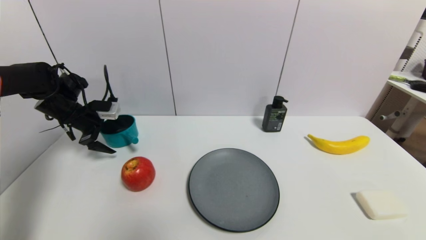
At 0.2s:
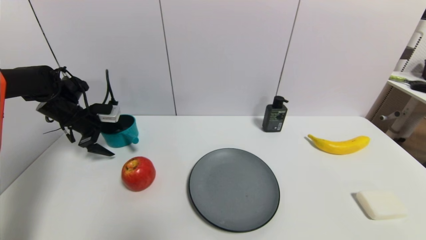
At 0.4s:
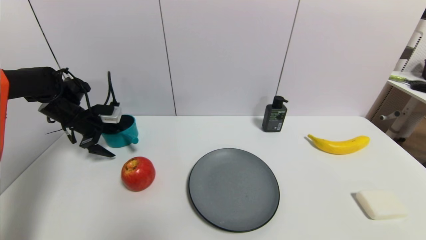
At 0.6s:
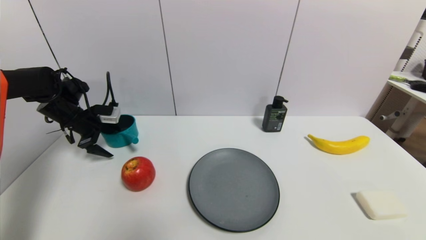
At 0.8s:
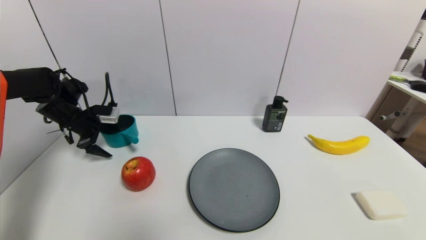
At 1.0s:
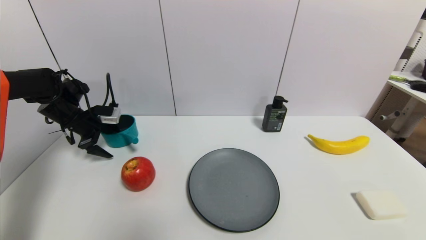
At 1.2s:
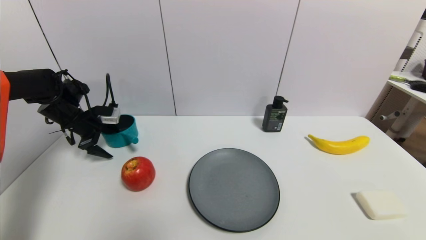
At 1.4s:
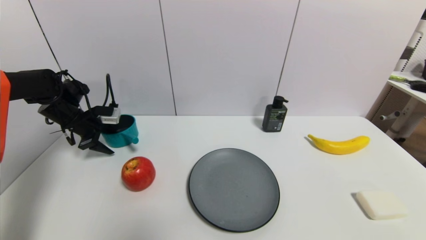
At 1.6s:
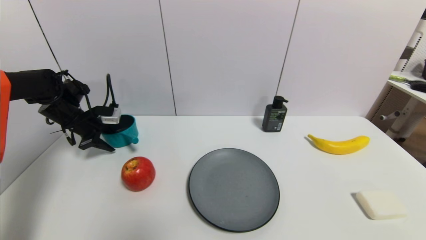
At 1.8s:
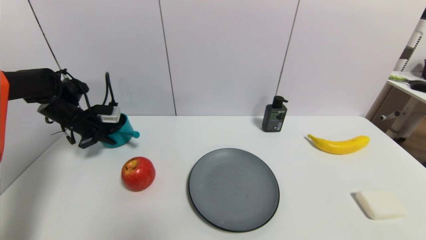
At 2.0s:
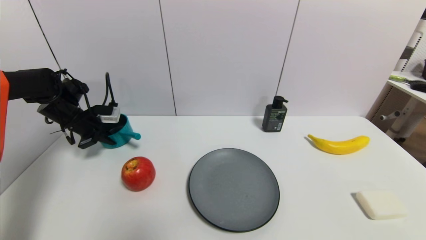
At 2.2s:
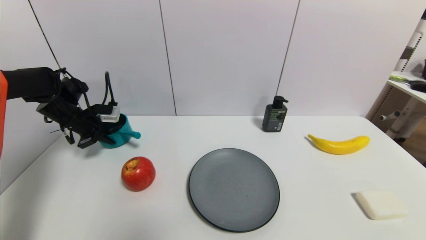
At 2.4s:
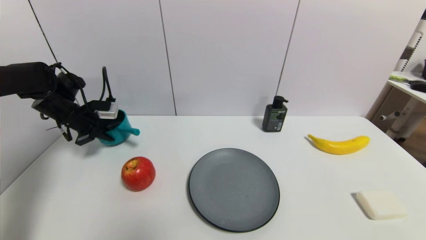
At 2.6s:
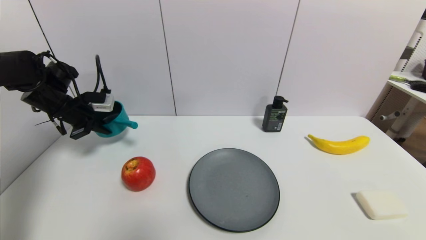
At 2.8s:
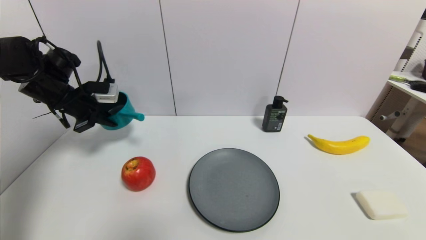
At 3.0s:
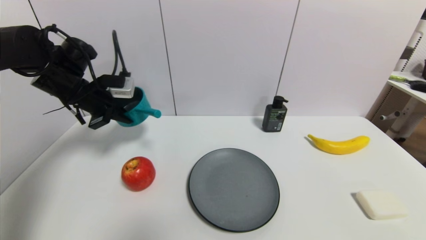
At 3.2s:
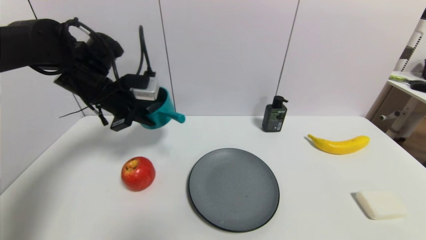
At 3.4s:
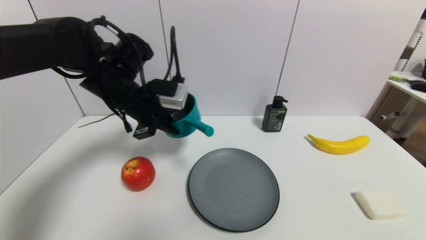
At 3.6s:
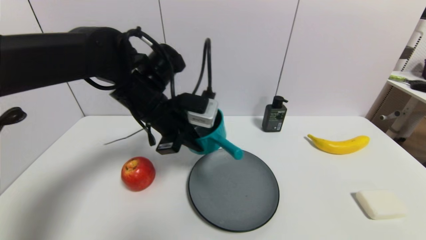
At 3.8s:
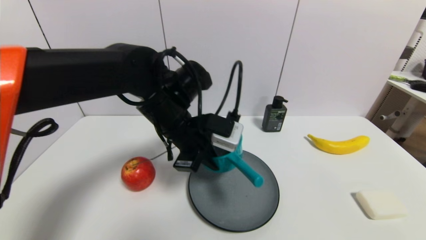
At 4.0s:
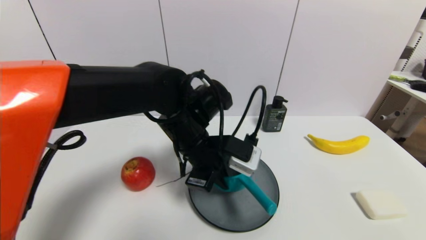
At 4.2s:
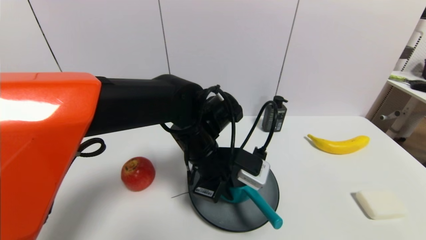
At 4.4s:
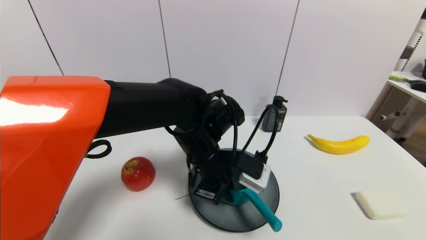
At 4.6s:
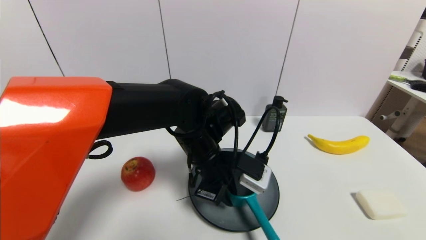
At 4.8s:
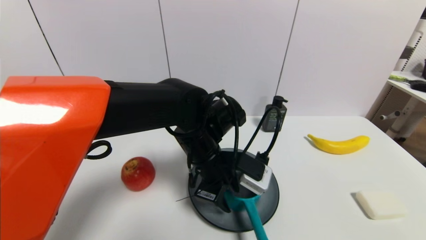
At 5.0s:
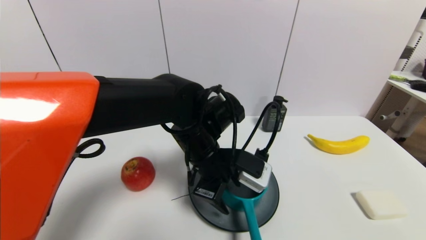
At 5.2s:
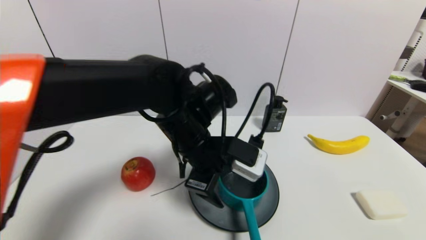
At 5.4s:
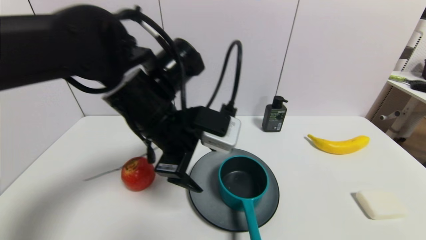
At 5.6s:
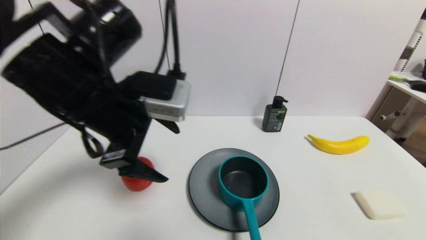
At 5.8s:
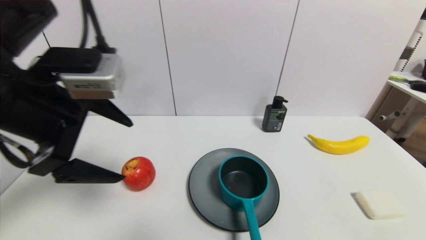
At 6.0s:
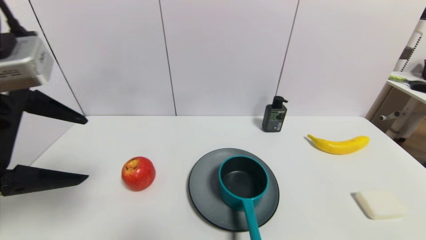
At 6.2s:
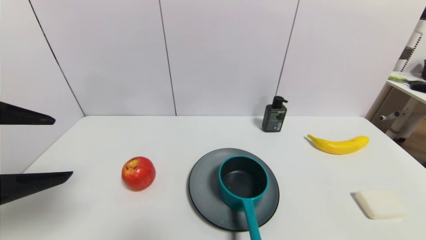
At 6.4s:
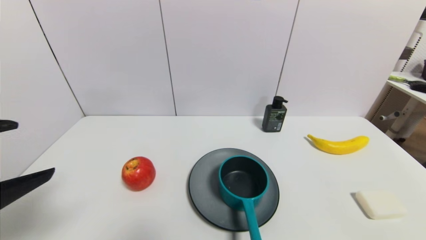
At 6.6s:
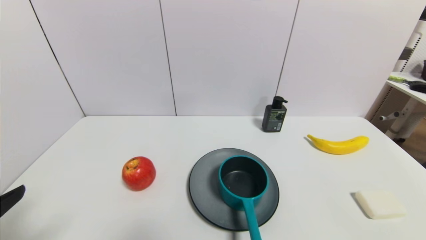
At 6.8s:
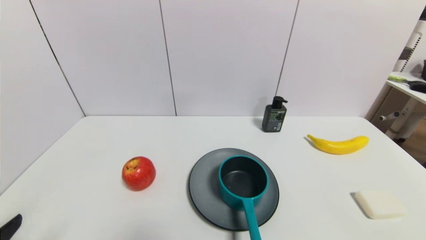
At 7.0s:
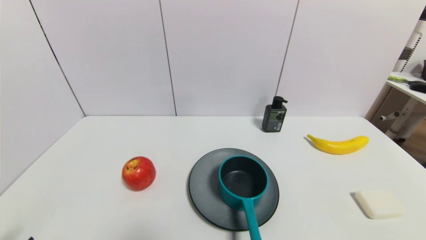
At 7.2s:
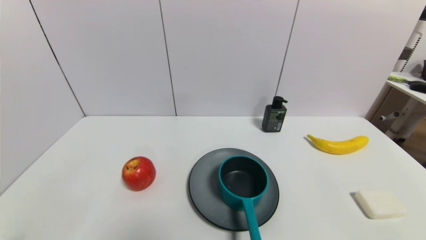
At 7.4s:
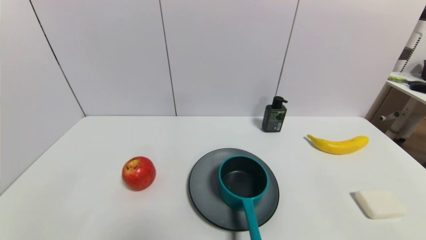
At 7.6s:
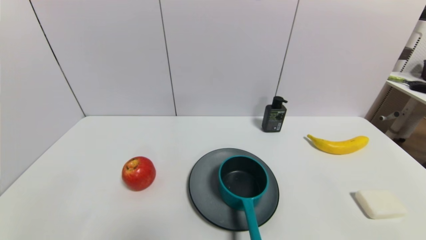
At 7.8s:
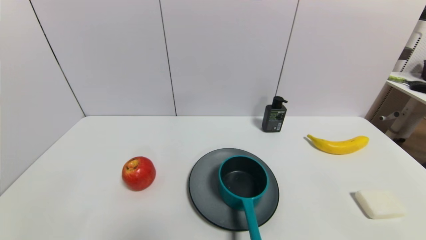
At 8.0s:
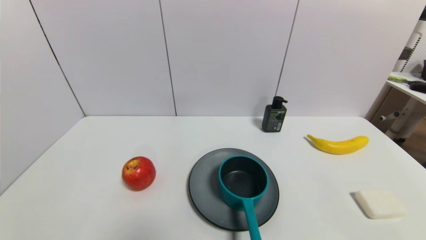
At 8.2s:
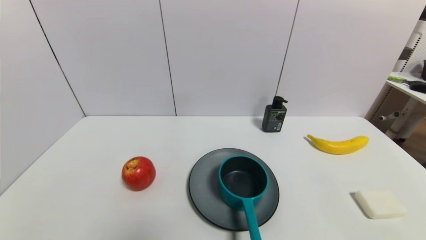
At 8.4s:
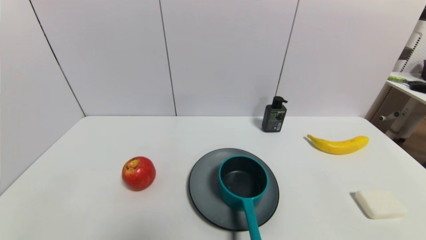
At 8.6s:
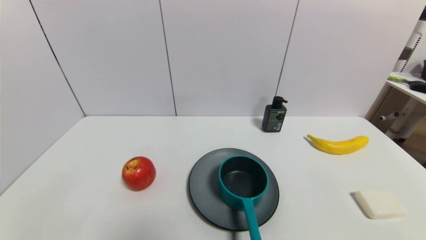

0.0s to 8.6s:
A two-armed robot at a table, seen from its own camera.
Task of the whole recording: use a gripper to pick the target object and place on the gray plate.
Step, 2.0s to 5.0s: Place the blue pot on the gray plate with the left gripper.
0.0s to 1.4s: The grippers stay close to where they were, moving slightly.
1.4s to 2.8s: The left gripper moves upward, roughly 10 cm, and closes.
2.8s to 4.4s: The left gripper travels to the right by some 30 cm.
4.4s to 5.8s: The left gripper moves to the left, upward and backward, roughly 25 cm, and opens its fingers.
5.8s to 7.2s: The left gripper is displaced downward, backward and to the left by approximately 30 cm.

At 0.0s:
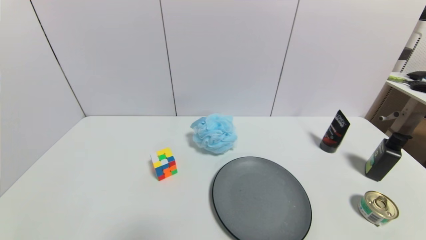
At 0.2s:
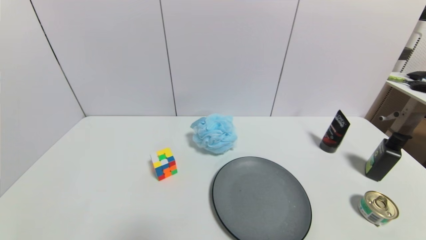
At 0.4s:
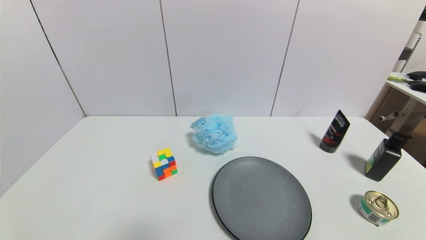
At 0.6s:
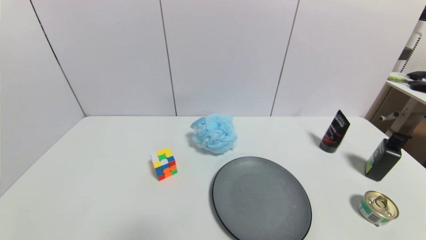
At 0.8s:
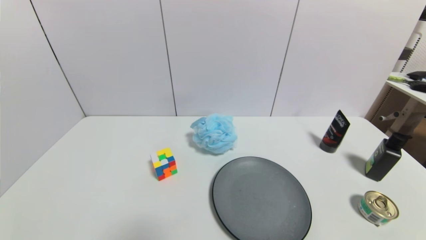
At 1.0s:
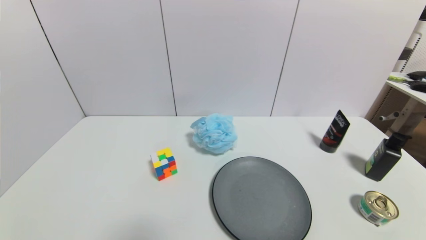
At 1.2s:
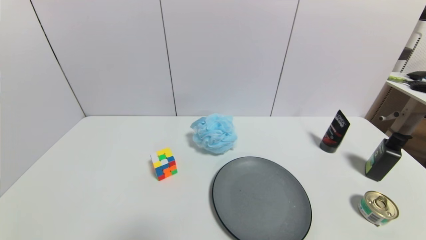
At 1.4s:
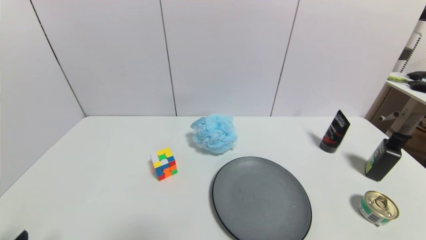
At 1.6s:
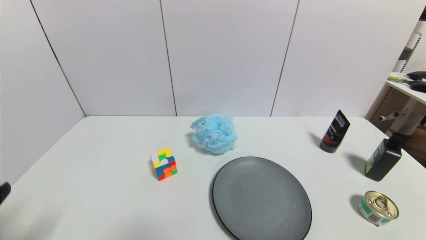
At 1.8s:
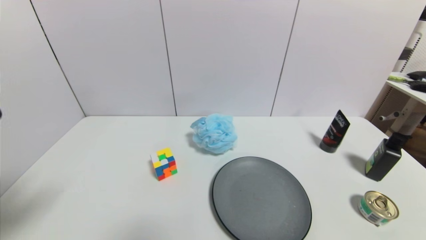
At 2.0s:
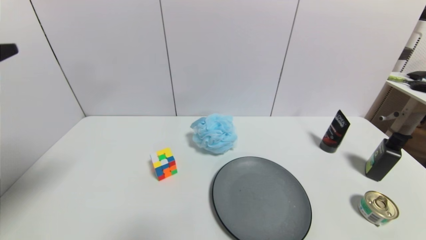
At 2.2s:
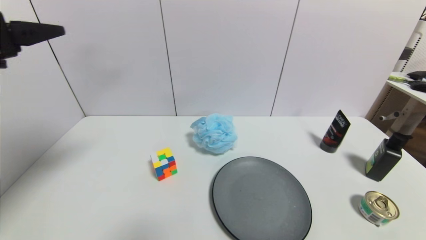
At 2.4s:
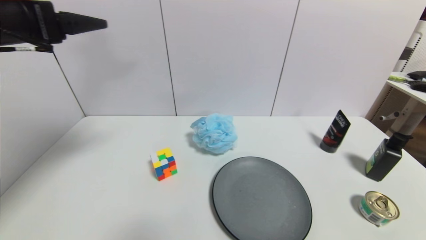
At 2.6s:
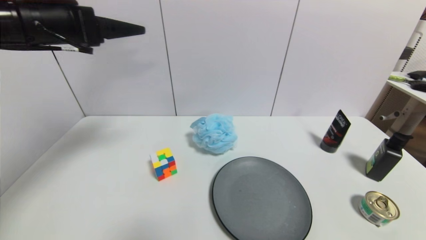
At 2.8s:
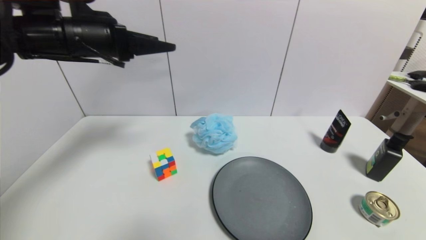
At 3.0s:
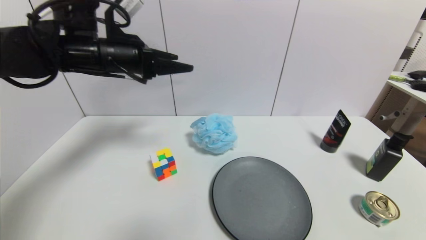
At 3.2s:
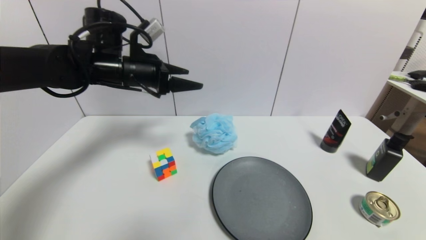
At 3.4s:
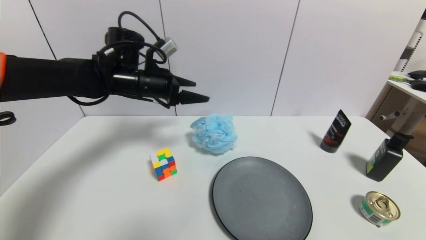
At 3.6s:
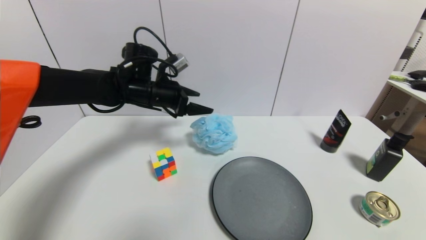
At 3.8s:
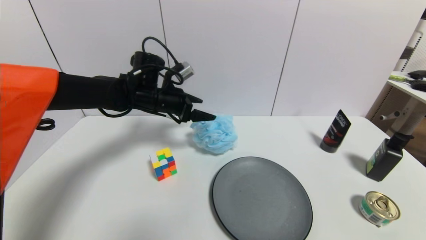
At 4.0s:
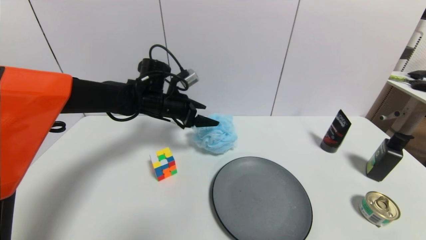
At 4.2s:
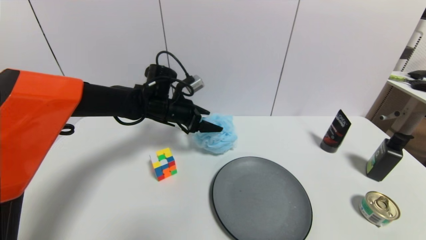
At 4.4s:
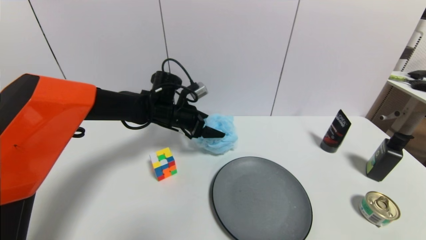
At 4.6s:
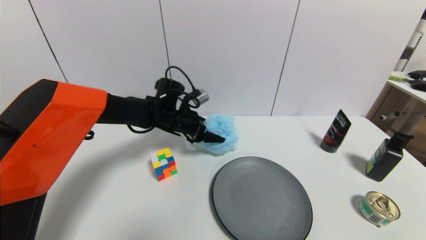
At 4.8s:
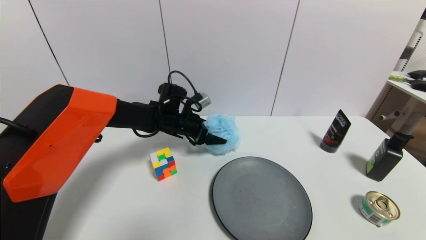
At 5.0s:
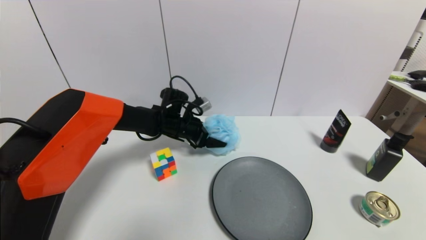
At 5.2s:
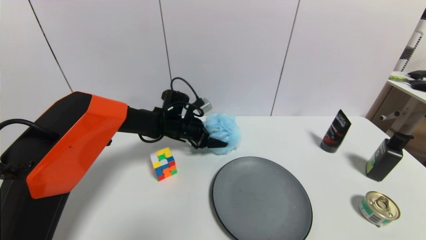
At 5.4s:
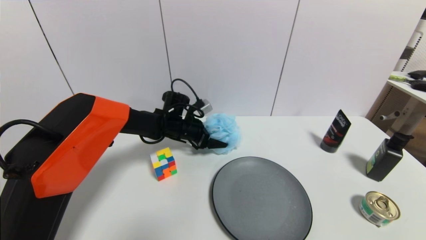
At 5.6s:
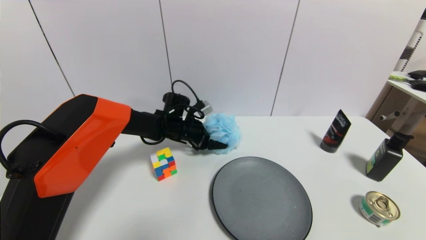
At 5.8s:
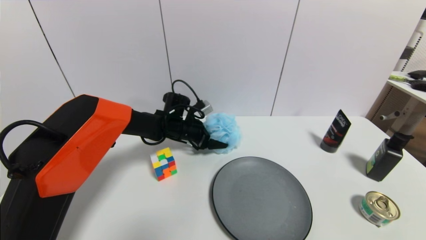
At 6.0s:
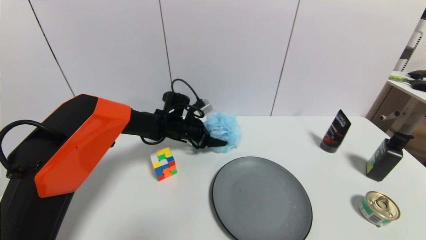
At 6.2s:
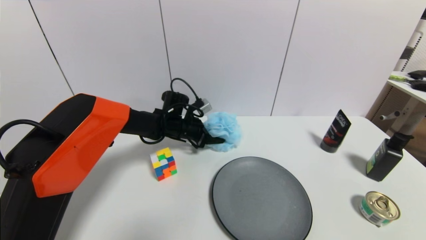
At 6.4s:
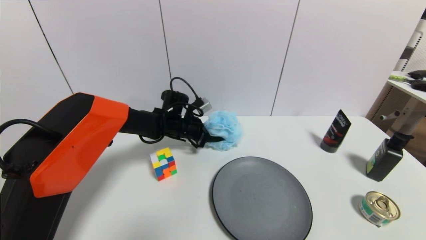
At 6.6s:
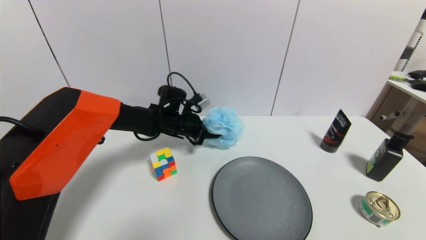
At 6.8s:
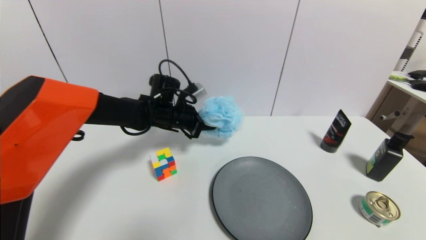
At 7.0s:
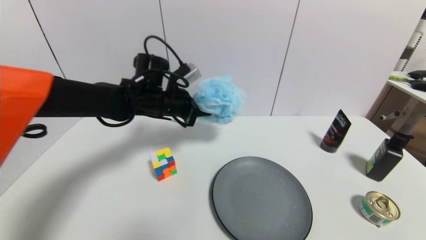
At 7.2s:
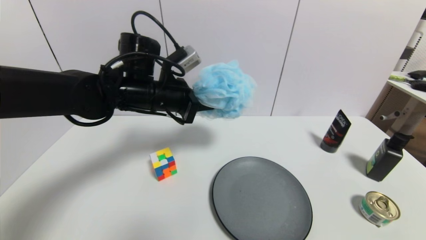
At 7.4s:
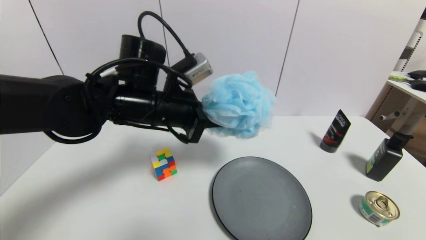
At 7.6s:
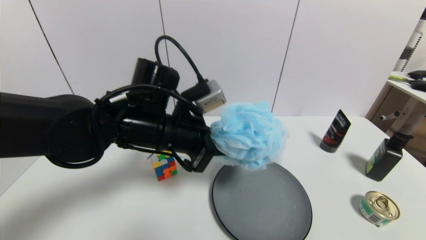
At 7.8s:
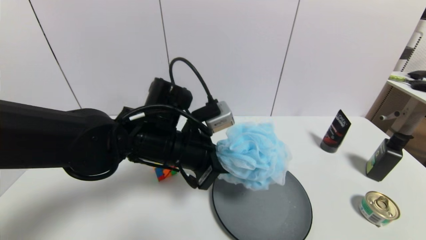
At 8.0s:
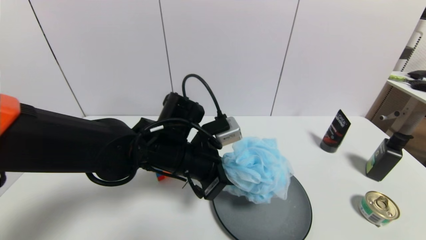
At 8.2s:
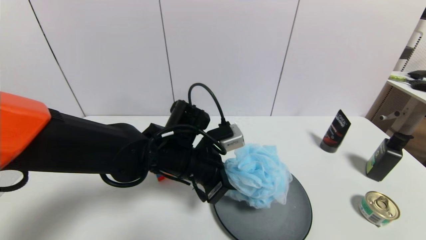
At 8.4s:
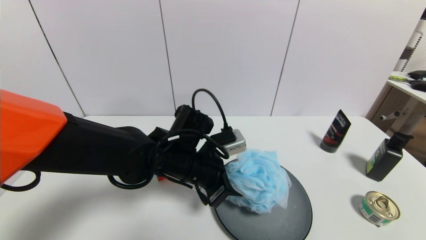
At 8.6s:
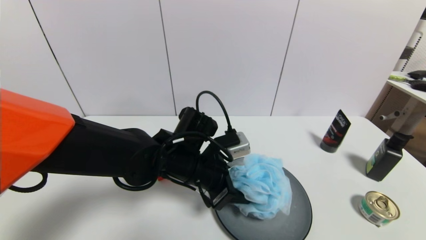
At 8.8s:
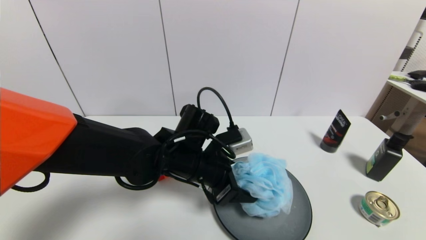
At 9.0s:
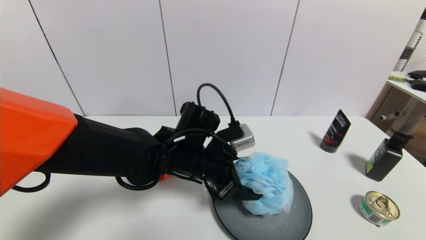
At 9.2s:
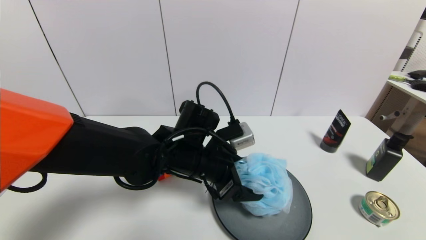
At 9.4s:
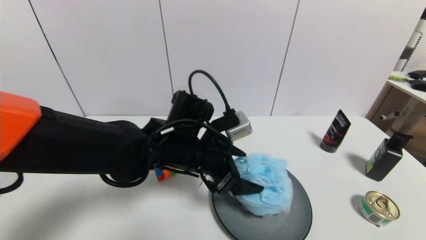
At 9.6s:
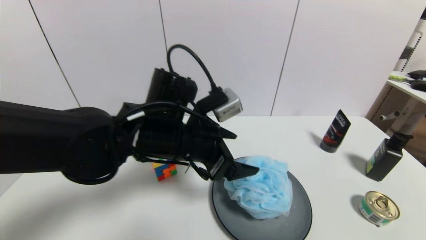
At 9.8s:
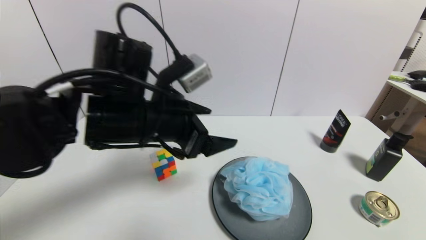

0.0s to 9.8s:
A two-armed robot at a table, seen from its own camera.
Task of the whole recording: use a gripper to pick the target object and place on the gray plate.
Step, 0.0s to 6.4s: Grasp the shower sphere with the left gripper.
Step, 6.6s to 9.6s: Place the shower sphere on the gray plate with the left gripper.
1.4s to 2.8s: The left gripper goes roughly 35 cm forward and upward.
2.8s to 4.2s: The left gripper goes about 20 cm downward, to the right and forward.
4.2s to 5.6s: The left gripper moves downward, approximately 10 cm.
5.6s to 7.0s: The left gripper shifts some 15 cm upward and backward, and closes up.
7.0s to 8.4s: The left gripper moves backward, downward and to the right, some 15 cm.
8.4s to 9.8s: The left gripper is displaced upward and to the left by roughly 15 cm, and opens its fingers.
